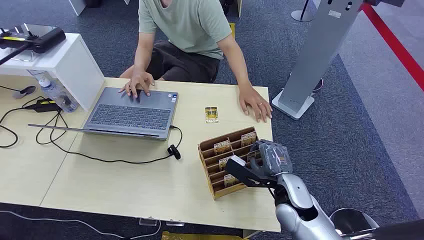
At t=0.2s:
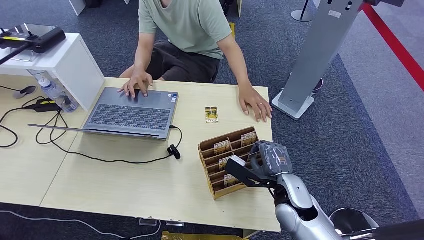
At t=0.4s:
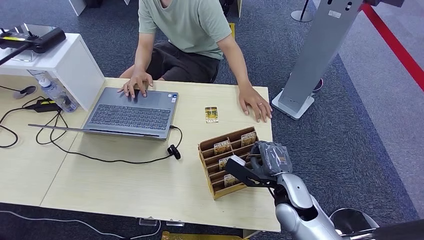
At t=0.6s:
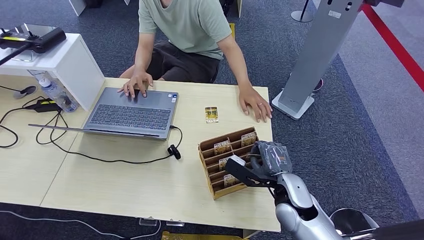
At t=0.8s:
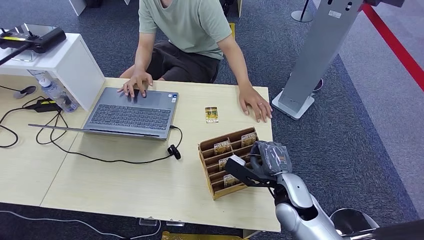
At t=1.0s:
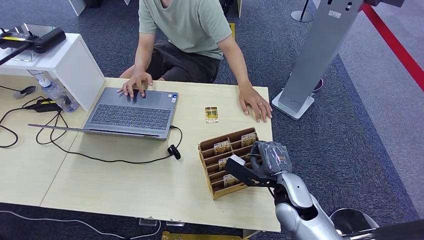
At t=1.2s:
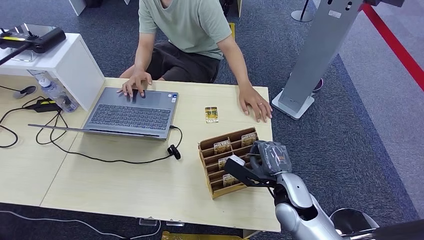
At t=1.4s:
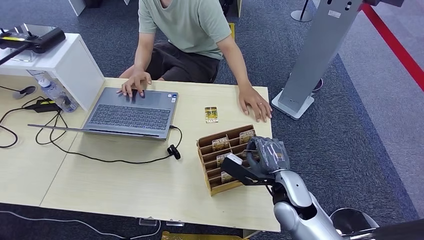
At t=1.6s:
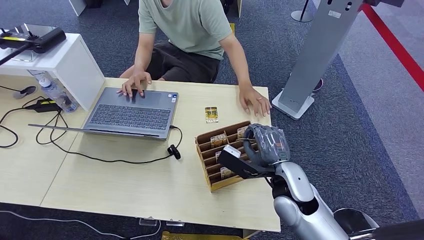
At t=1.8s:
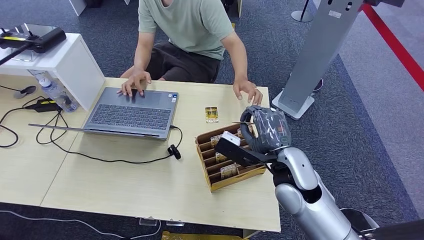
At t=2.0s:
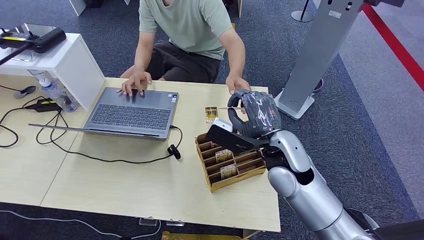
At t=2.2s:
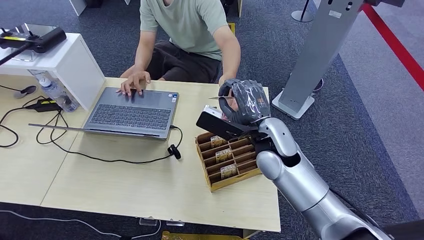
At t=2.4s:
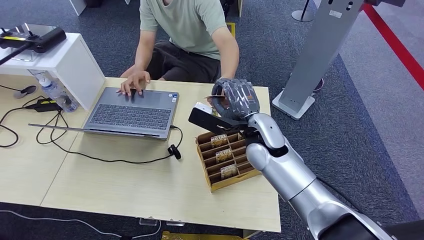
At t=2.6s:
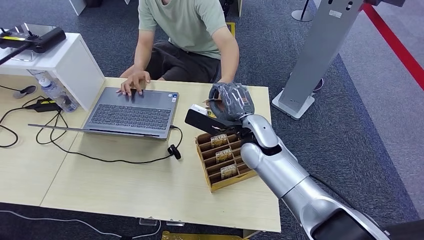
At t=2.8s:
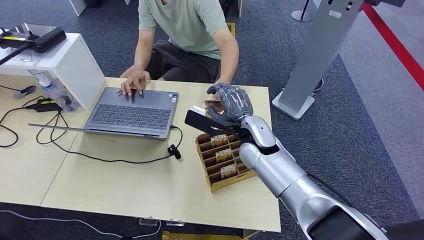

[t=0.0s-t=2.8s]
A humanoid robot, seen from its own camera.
Step, t=0.0s to t=1.8s: Pick up the key card from the card box.
Step, t=2.0s to t=2.6s: Hand the key card to the target.
t=1.4s to t=2.8s: The right hand shifts about 15 cm to the left, forward and upward.
